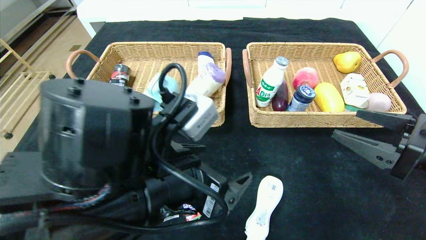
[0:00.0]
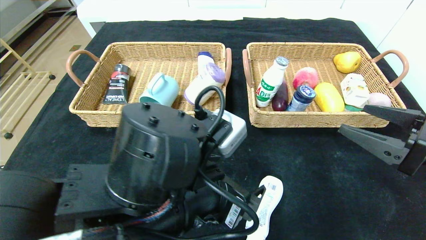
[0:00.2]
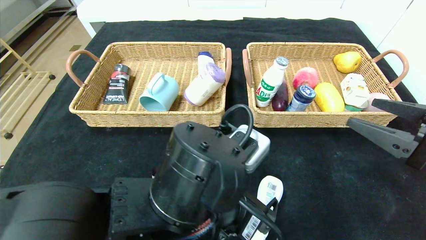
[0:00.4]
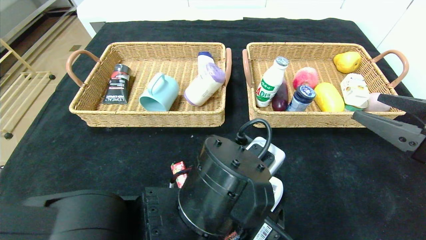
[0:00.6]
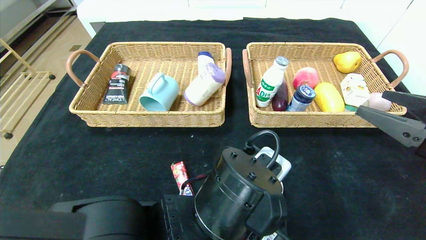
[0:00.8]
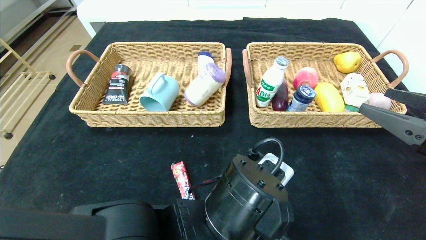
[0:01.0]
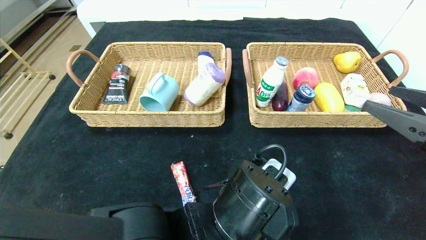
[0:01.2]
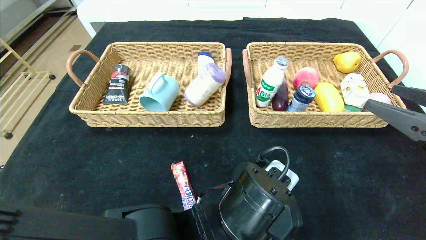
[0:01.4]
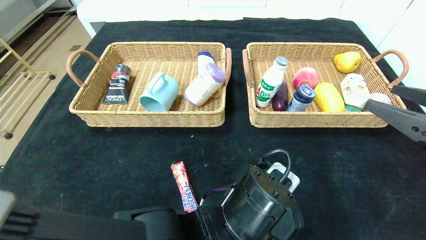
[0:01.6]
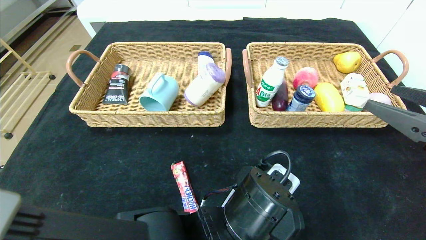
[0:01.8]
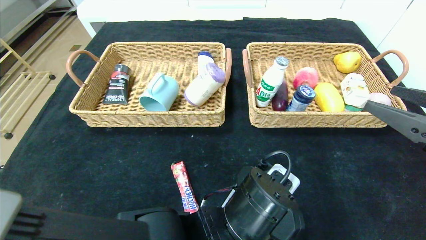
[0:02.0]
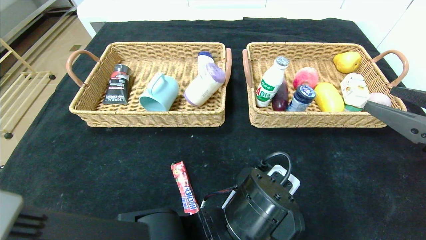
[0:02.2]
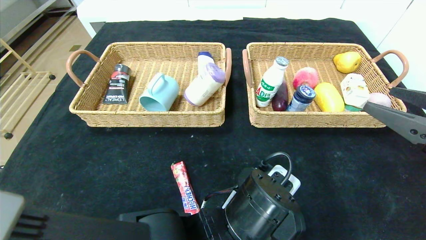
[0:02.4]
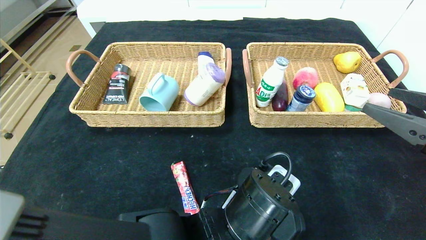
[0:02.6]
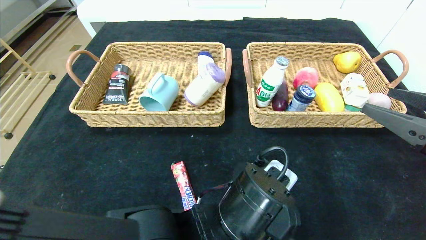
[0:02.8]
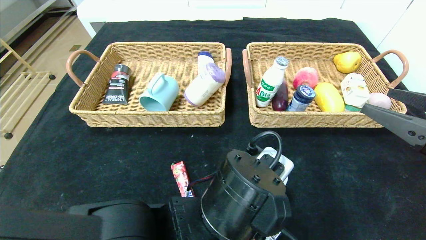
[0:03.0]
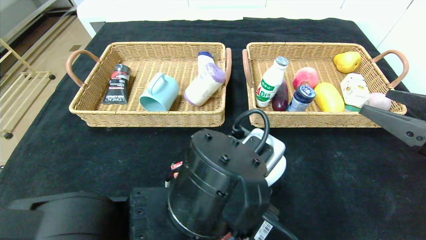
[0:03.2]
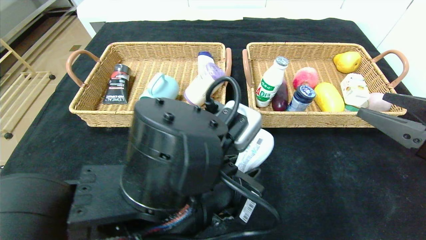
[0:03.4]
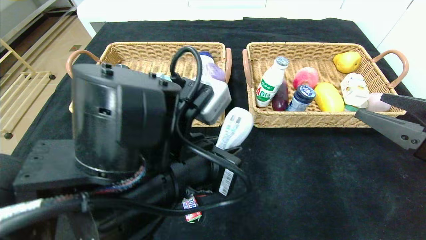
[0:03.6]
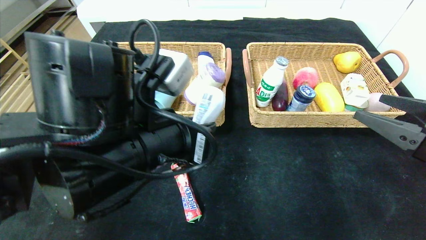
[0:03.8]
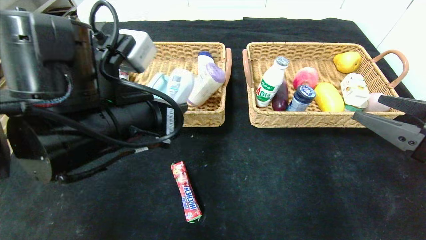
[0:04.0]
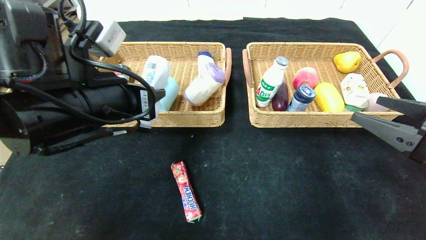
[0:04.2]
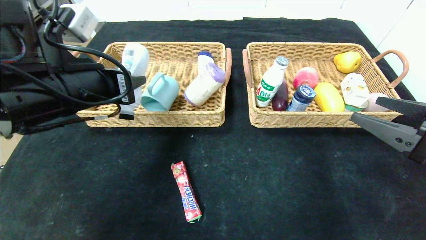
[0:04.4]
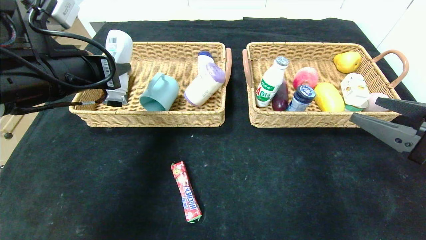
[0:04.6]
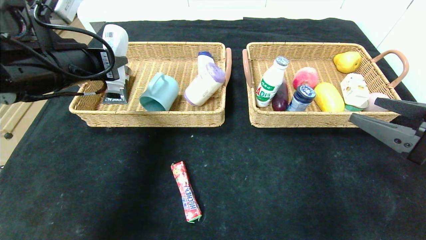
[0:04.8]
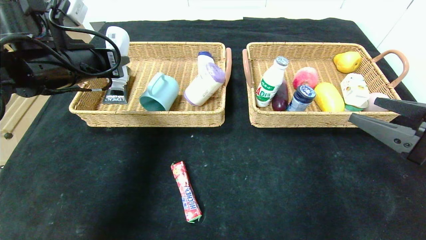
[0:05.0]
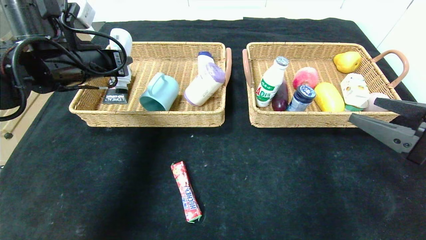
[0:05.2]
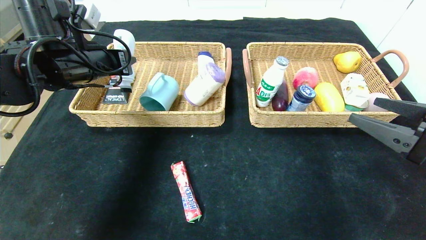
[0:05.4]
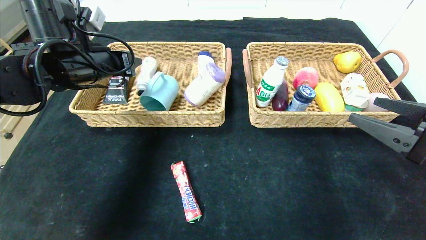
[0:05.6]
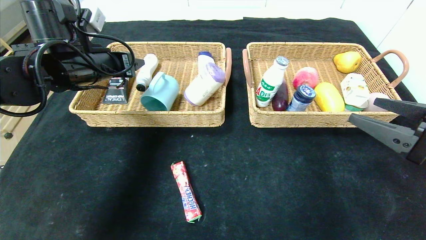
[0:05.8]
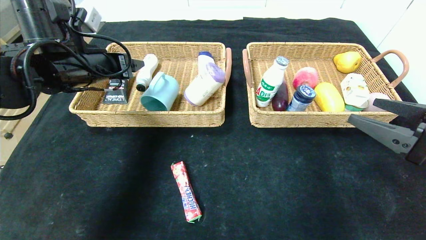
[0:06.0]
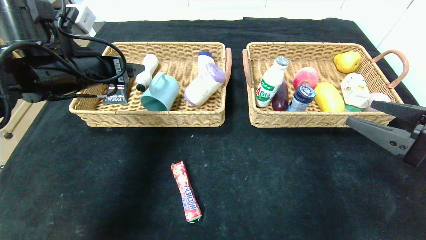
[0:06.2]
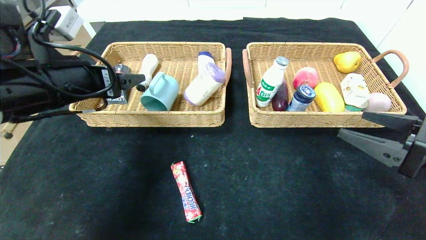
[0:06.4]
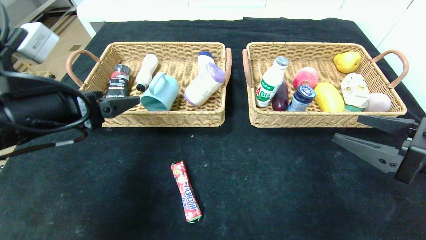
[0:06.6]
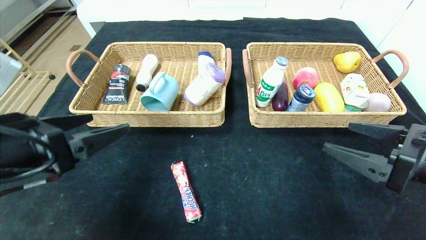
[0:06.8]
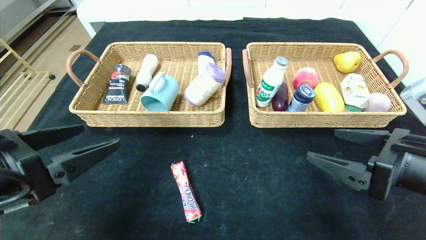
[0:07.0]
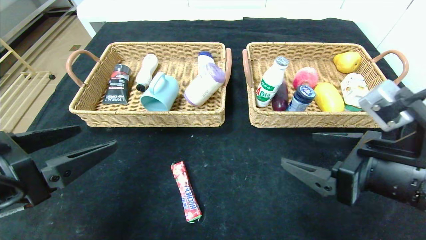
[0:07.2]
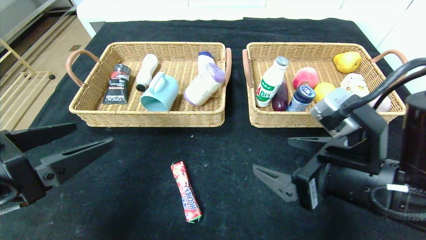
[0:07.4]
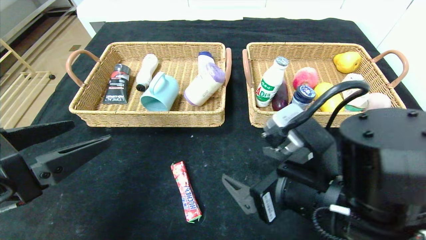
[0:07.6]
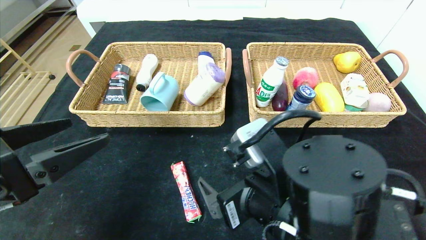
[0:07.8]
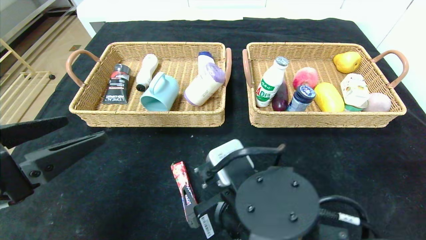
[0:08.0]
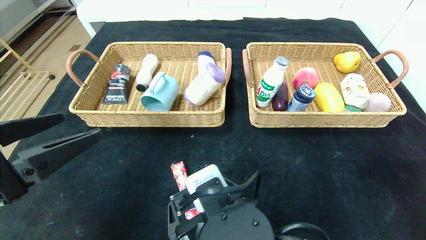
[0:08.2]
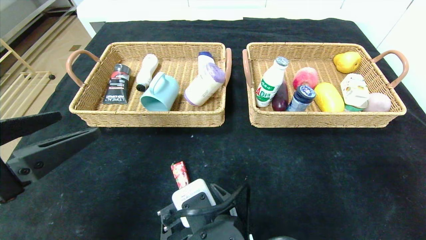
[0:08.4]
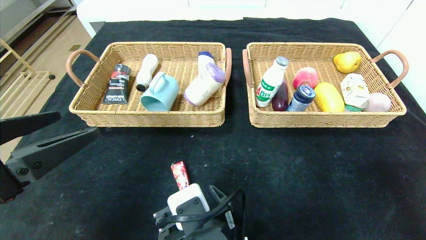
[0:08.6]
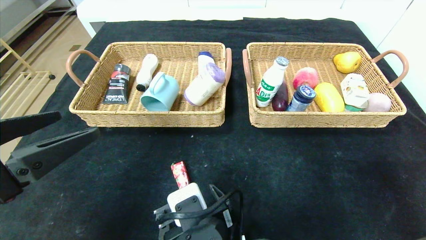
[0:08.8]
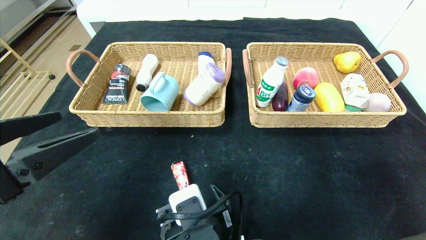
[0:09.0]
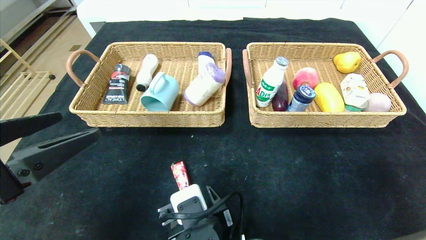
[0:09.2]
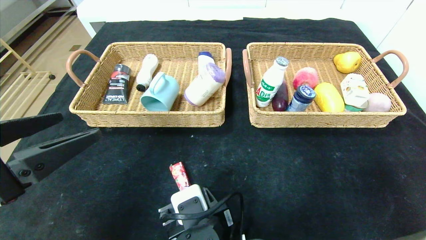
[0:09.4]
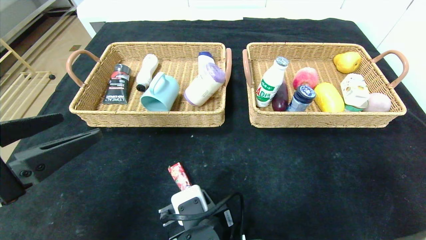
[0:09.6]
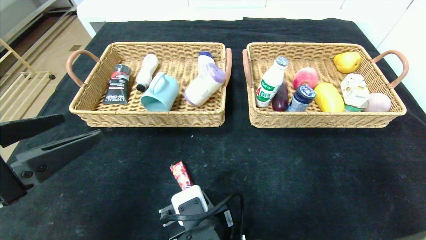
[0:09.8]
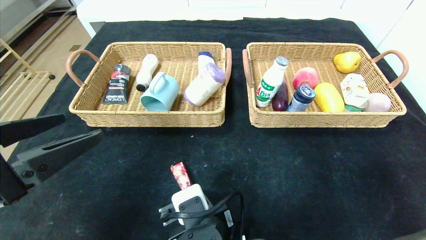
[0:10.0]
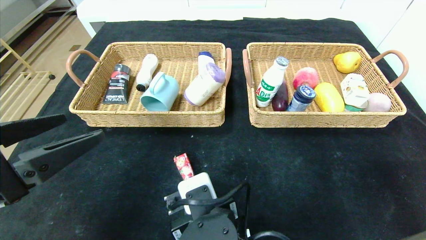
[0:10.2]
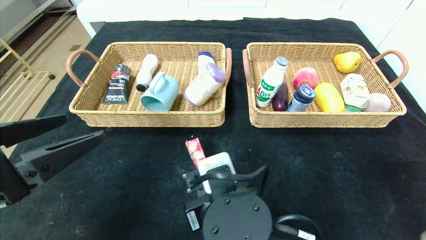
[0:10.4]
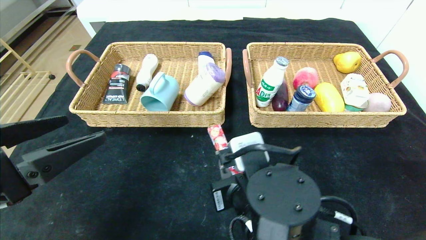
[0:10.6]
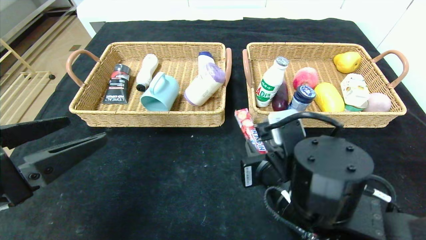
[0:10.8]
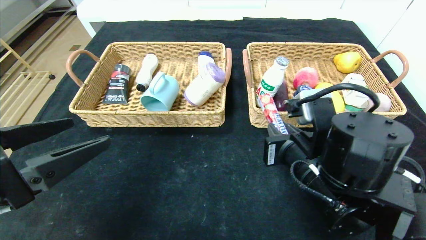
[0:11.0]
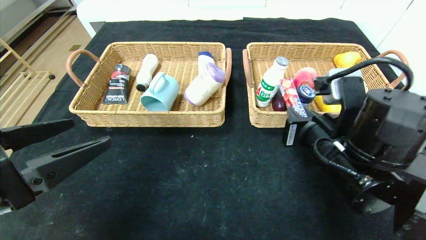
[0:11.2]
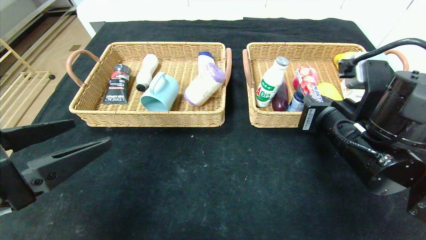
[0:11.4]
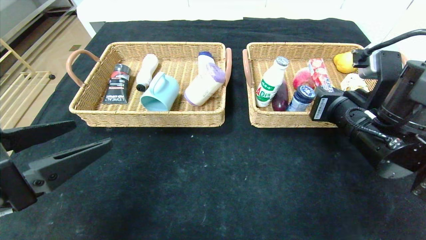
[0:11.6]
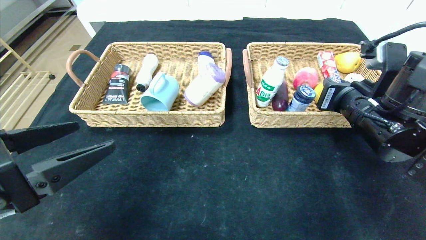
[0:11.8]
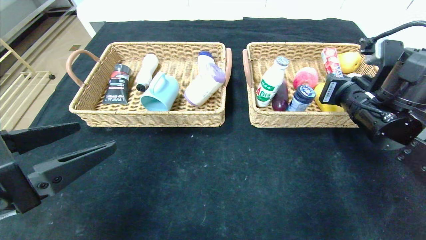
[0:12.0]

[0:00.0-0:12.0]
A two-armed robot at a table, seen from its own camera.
Step, 0:00.0 to 0:05.6: Grasp the washing liquid and put it in the left basket.
0:00.0 to 0:01.6: The left gripper heads to the right and downward, covering about 15 cm.
0:01.6 to 0:03.0: The left gripper closes.
0:03.0 to 0:04.4: The left gripper travels to the left, upward and forward by approximately 25 cm.
0:04.4 to 0:06.0: The left gripper travels forward by roughly 10 cm, and opens its fingers.
0:06.0 to 0:07.6: The left gripper heads backward, covering roughly 20 cm; the right gripper is displaced to the left by some 20 cm.
0:07.6 to 0:09.0: The right gripper travels to the left and downward by roughly 20 cm.
0:09.0 to 0:10.4: The right gripper moves upward, about 5 cm, and closes.
0:10.4 to 0:12.0: The right gripper moves to the right, forward and upward, roughly 30 cm.

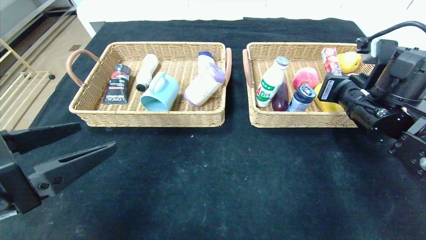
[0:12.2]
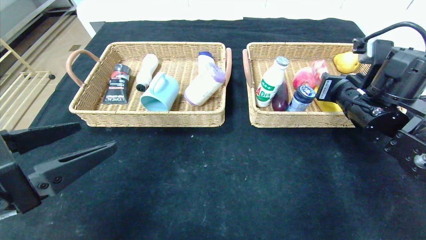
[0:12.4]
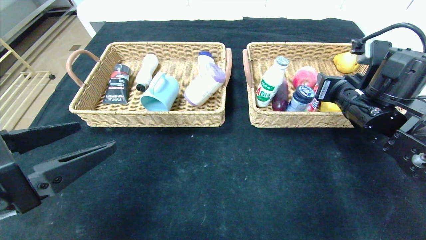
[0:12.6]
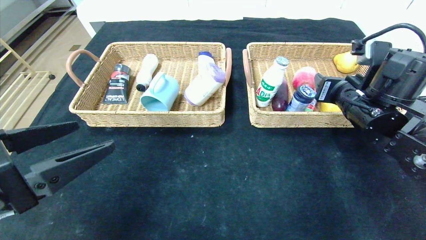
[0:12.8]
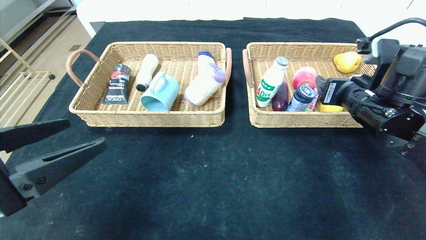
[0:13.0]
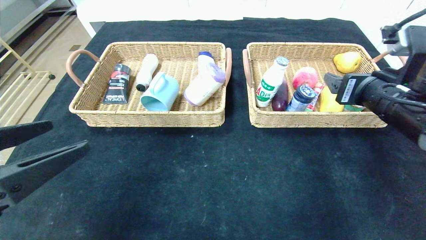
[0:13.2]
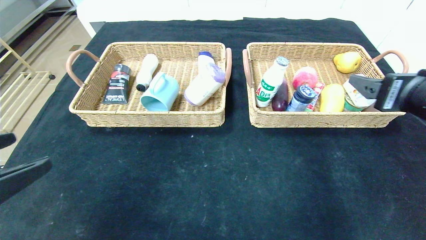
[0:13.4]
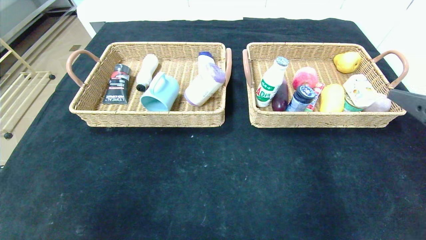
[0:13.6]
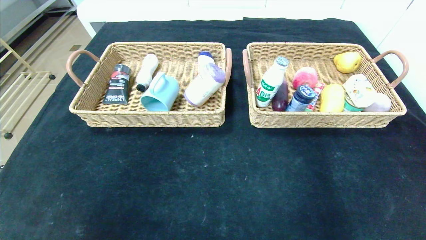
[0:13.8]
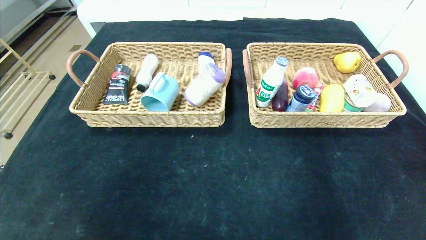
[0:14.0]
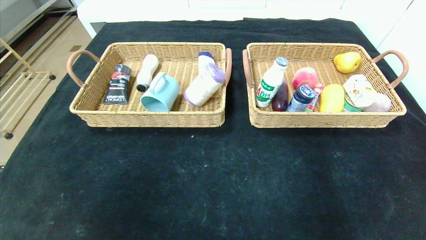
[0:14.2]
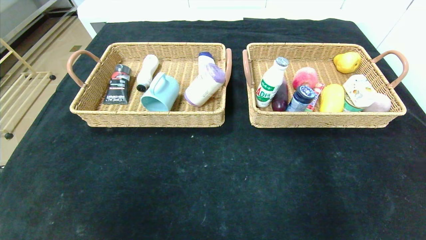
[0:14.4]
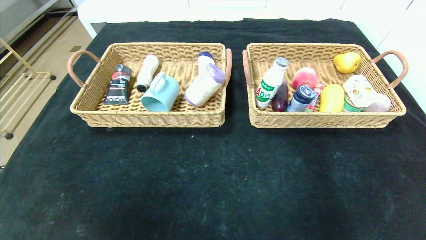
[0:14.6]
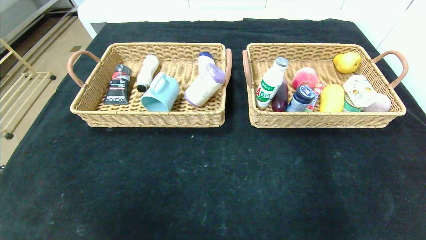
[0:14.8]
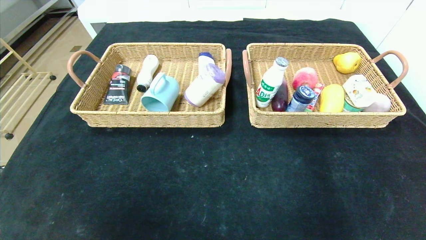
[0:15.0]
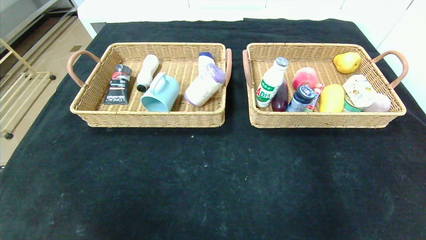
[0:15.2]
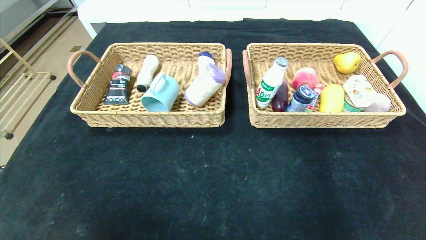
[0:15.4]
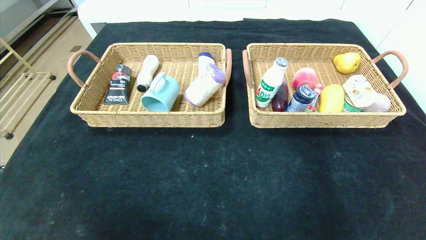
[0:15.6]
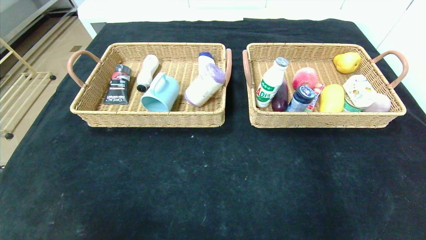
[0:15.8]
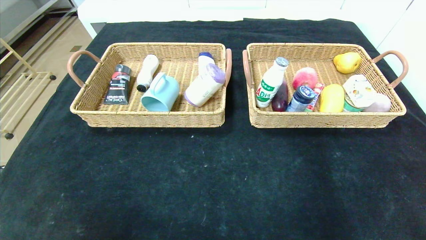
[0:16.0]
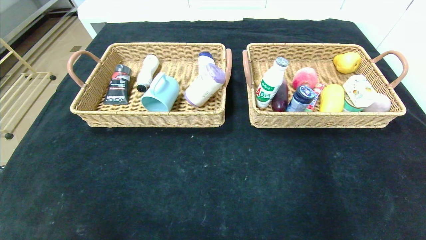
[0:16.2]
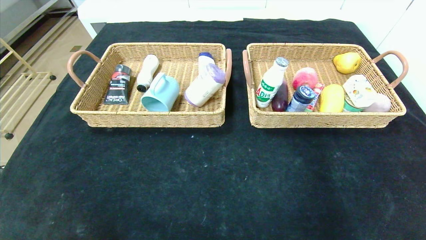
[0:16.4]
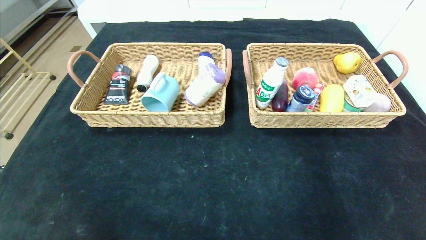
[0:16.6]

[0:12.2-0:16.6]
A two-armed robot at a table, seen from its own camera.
0:12.2 to 0:13.6: The left gripper moves backward, some 10 cm. Meanwhile the right gripper moves backward, about 15 cm, and opens.
0:13.6 to 0:15.2: The left gripper is displaced backward and downward by about 10 cm, while the right gripper goes about 25 cm backward and downward.
